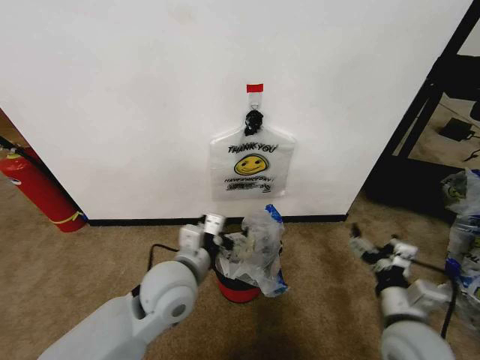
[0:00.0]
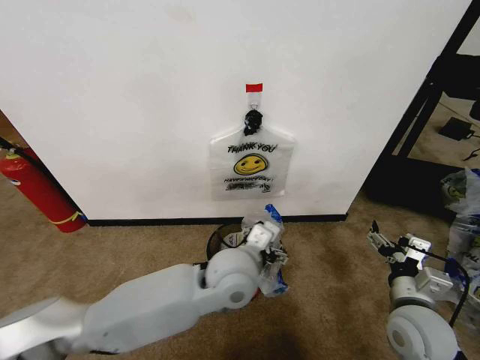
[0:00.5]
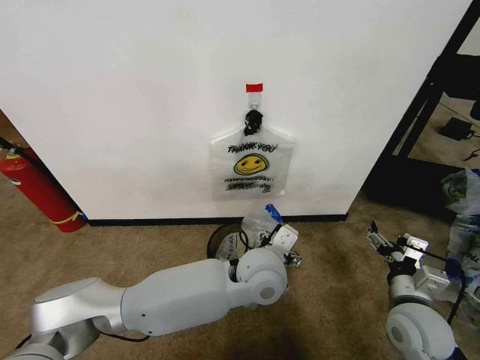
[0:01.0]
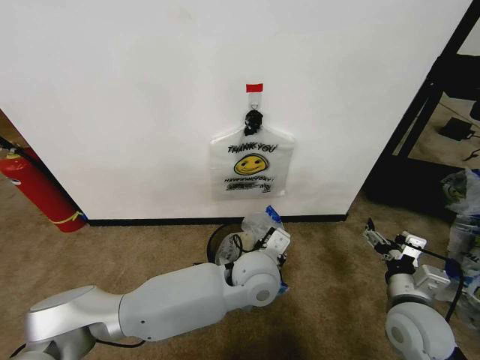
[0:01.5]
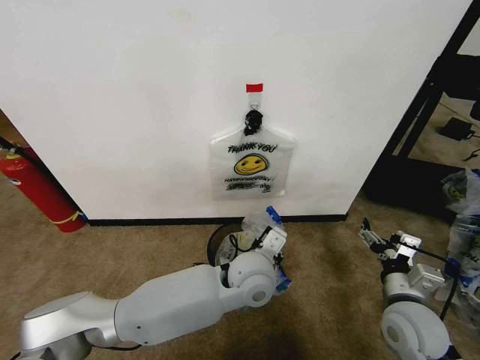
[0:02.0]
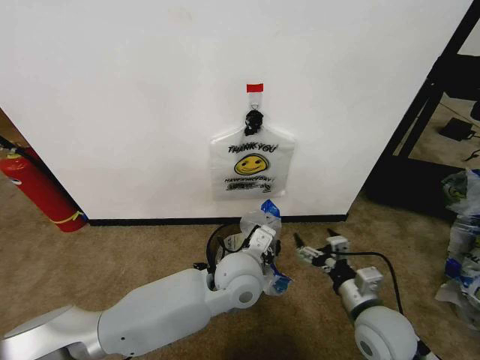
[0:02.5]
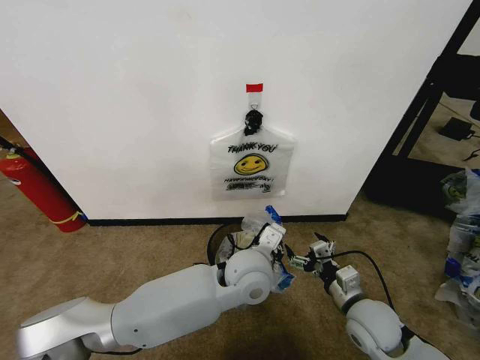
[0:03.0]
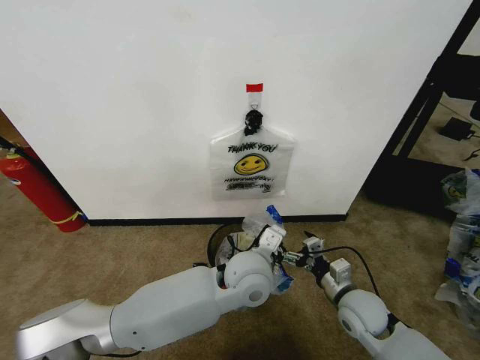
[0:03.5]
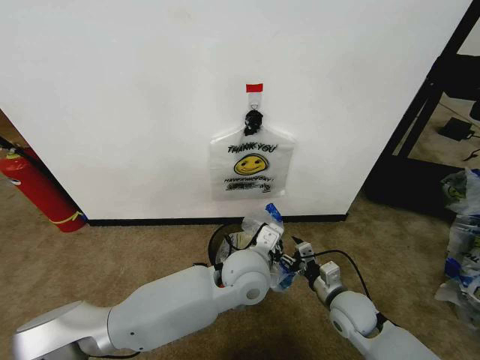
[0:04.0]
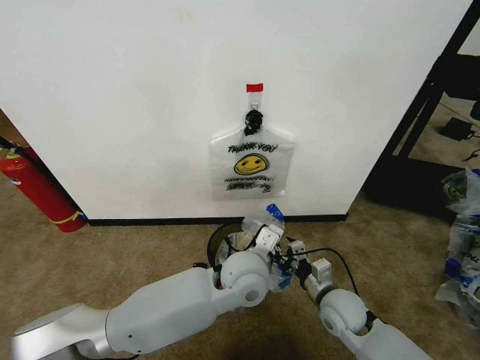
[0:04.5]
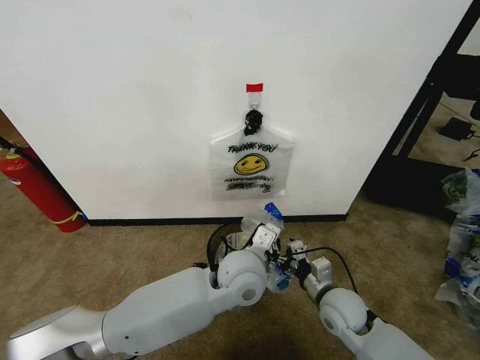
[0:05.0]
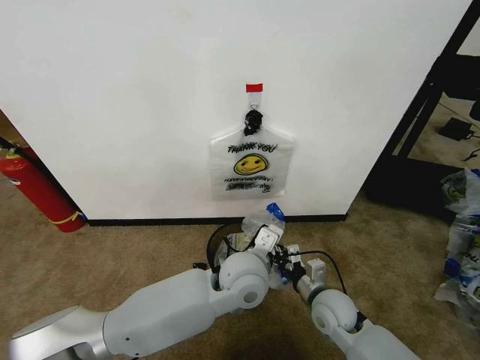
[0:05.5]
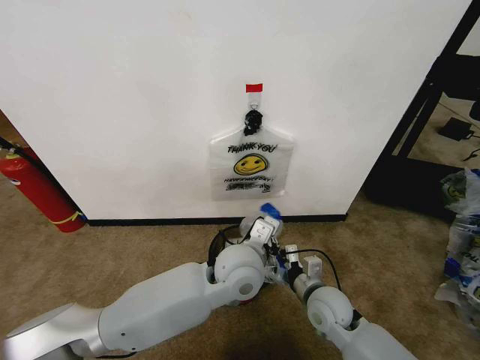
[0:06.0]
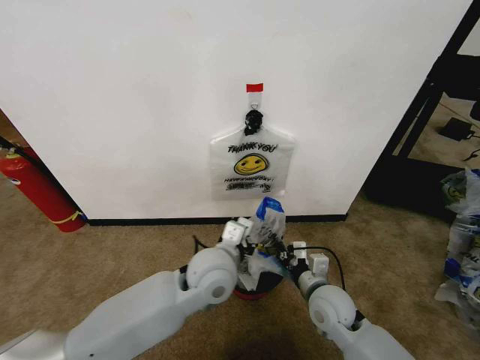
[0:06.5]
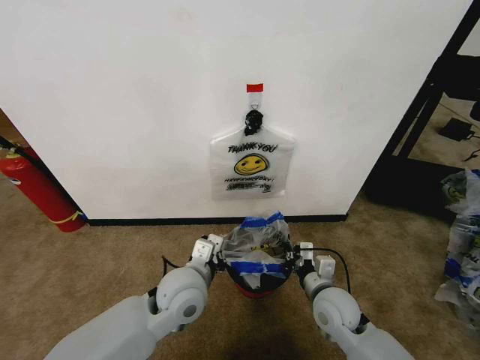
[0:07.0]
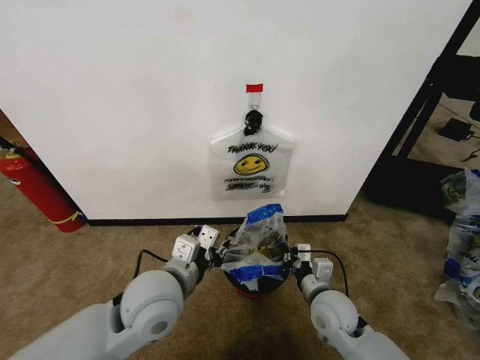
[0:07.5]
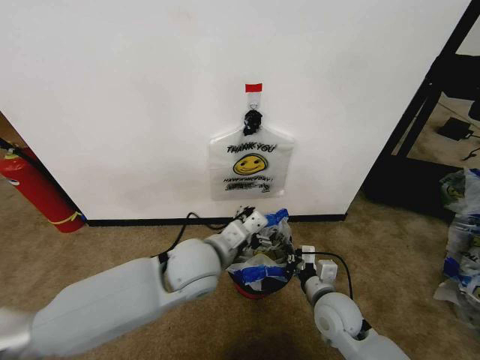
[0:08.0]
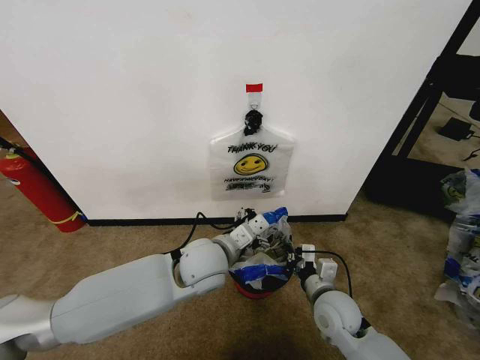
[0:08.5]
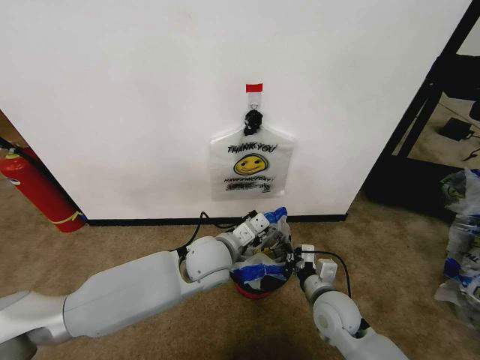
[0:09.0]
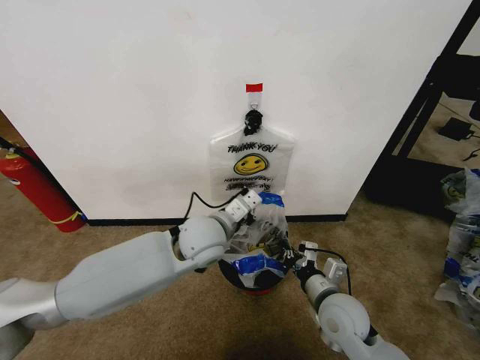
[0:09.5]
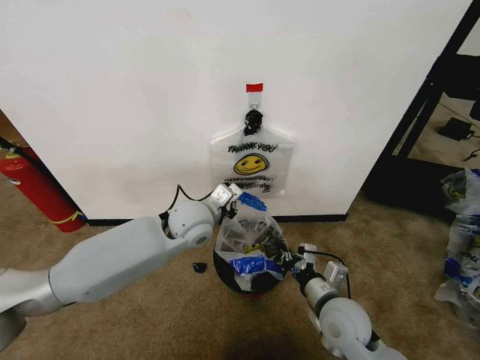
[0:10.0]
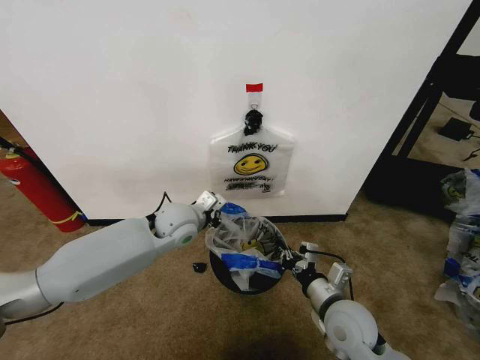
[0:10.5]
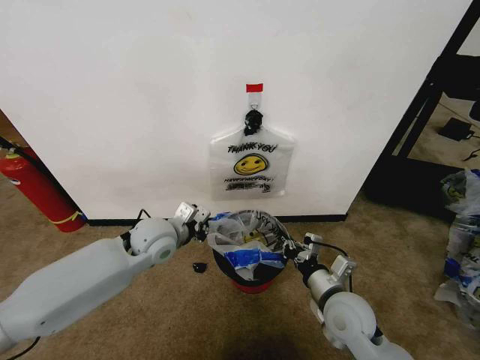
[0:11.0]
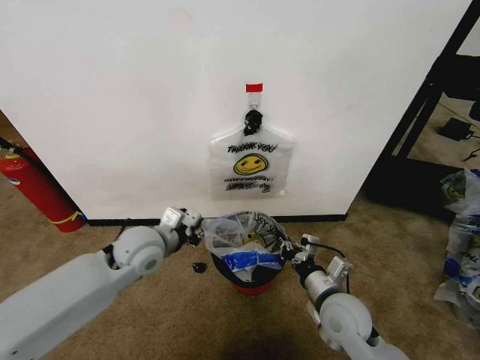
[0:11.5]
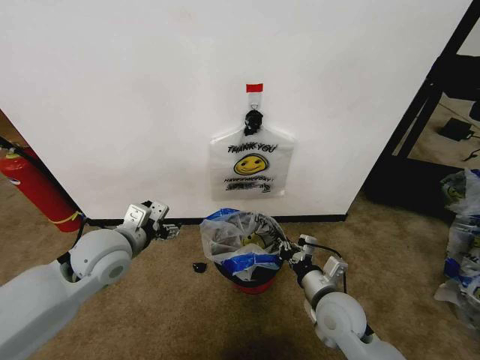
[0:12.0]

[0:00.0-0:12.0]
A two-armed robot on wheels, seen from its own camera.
Task of the whole recording: Pick up the garbage bag from the wall and place it over the trash bin.
0:00.0 to 0:02.0: The left gripper shifts approximately 15 cm to the right, and closes.
0:02.0 to 0:04.0: The right gripper is displaced downward, to the left and forward by approximately 10 cm.
0:04.0 to 0:06.0: The right gripper travels to the left by approximately 5 cm, and closes up.
0:06.0 to 0:08.0: The left gripper goes some 10 cm to the left, and opens its fingers.
0:08.0 to 0:10.0: The left gripper travels forward by about 10 cm, and closes up.
0:10.0 to 0:12.0: The left gripper moves to the left and backward, approximately 15 cm, and opens up.

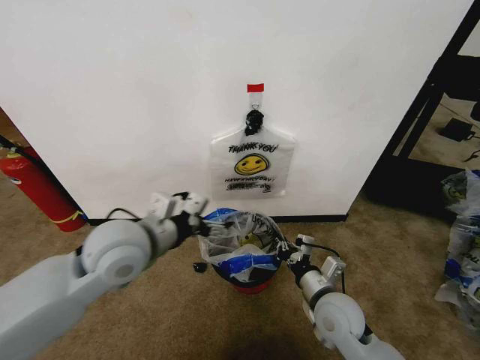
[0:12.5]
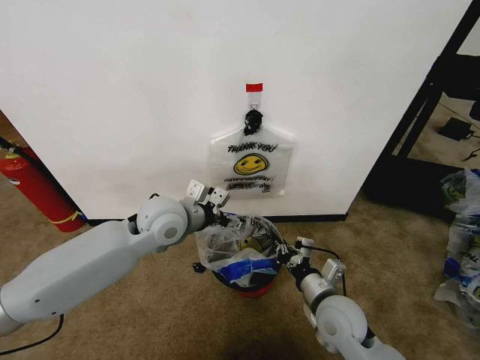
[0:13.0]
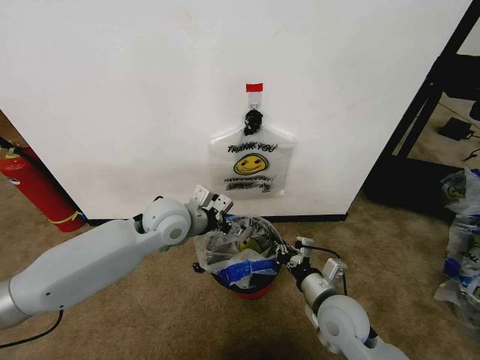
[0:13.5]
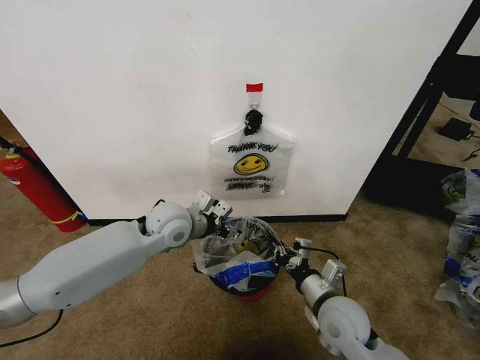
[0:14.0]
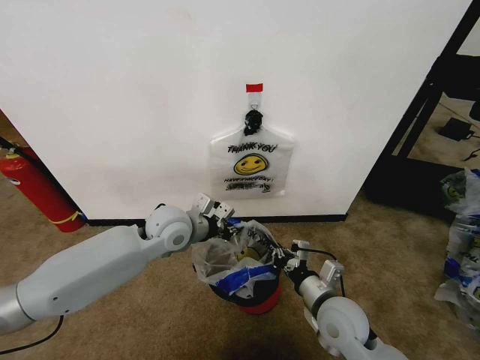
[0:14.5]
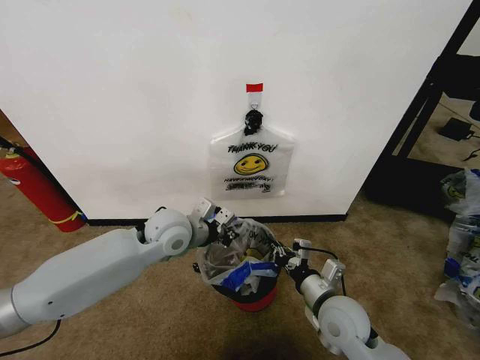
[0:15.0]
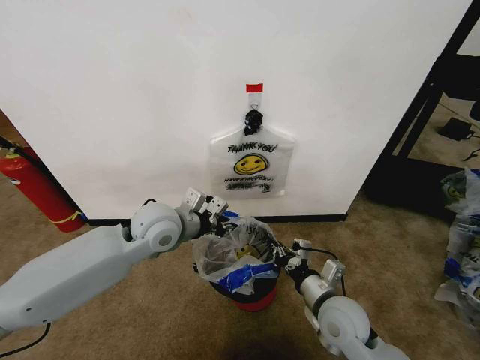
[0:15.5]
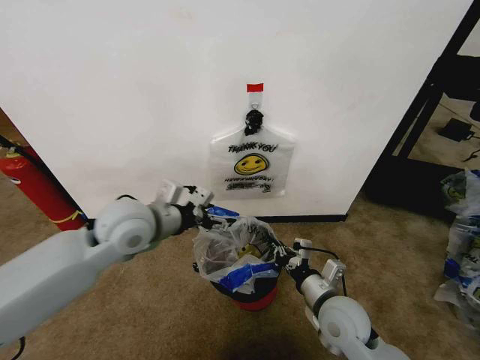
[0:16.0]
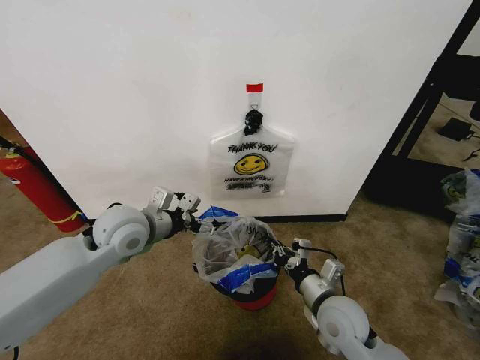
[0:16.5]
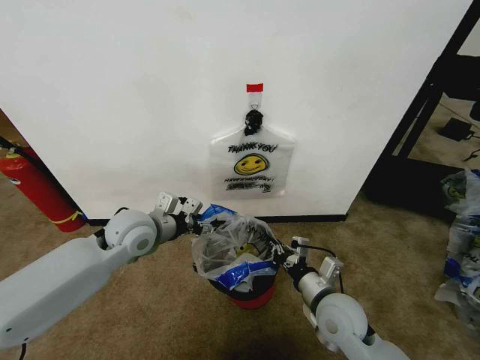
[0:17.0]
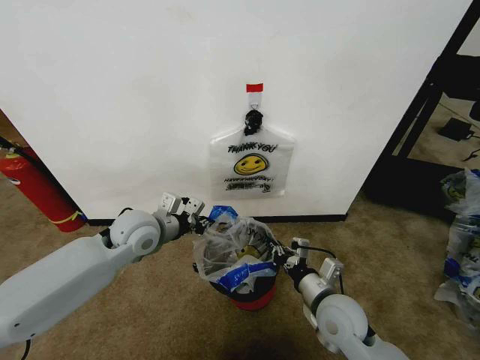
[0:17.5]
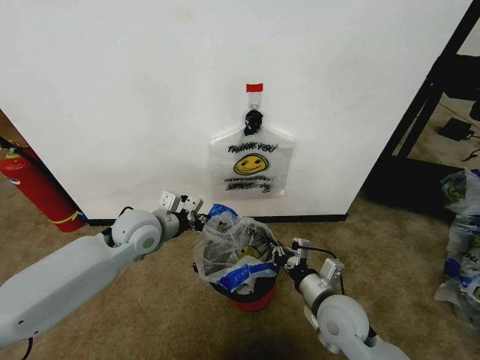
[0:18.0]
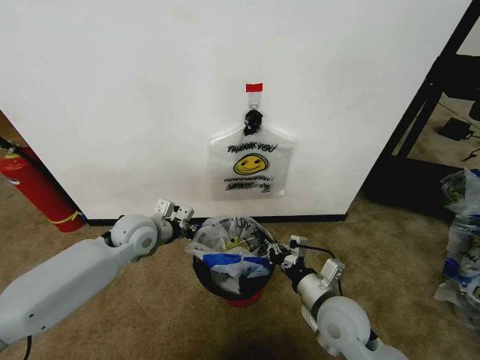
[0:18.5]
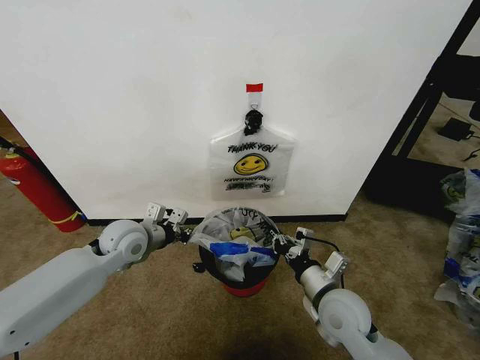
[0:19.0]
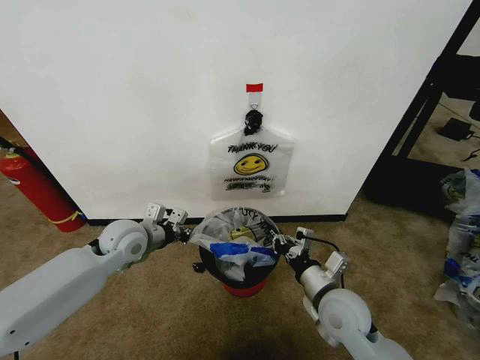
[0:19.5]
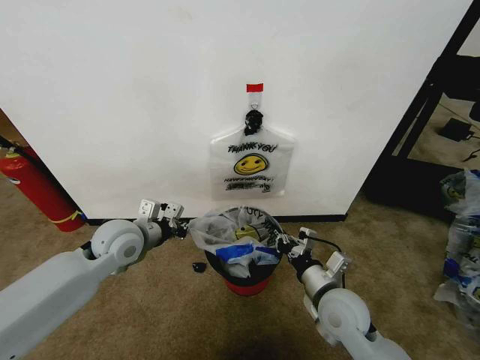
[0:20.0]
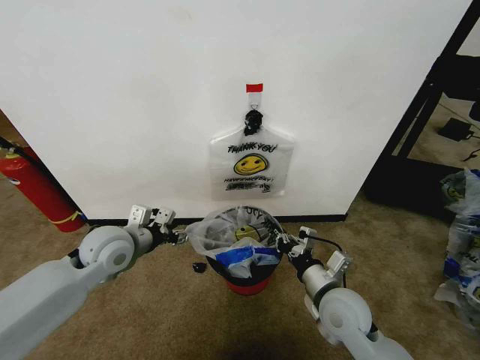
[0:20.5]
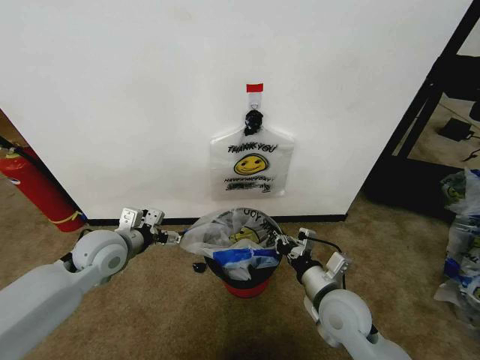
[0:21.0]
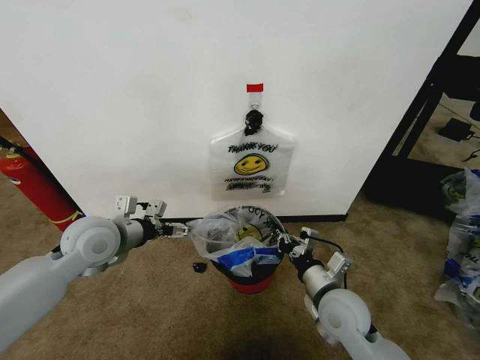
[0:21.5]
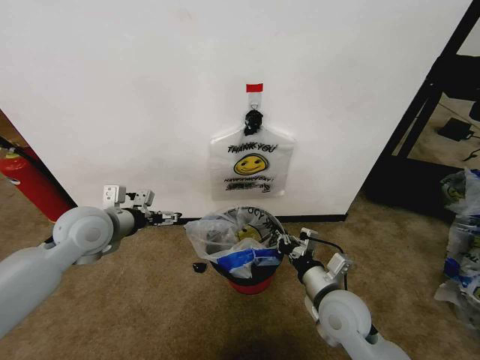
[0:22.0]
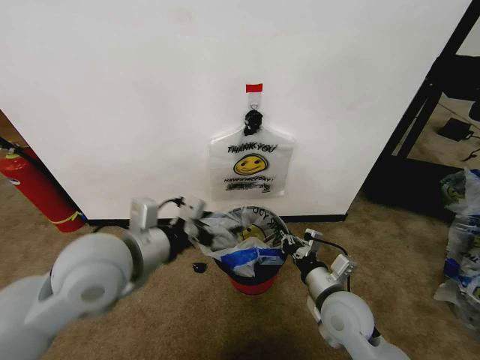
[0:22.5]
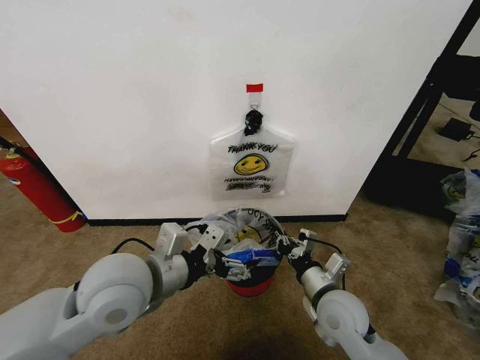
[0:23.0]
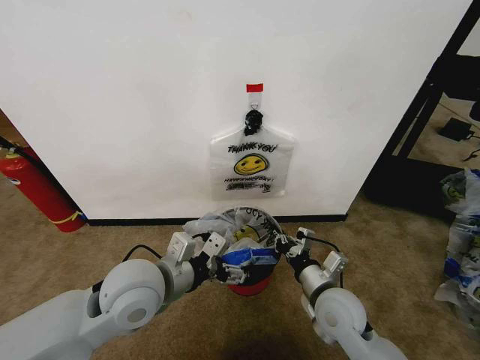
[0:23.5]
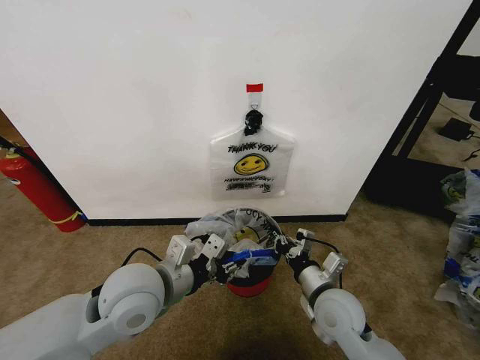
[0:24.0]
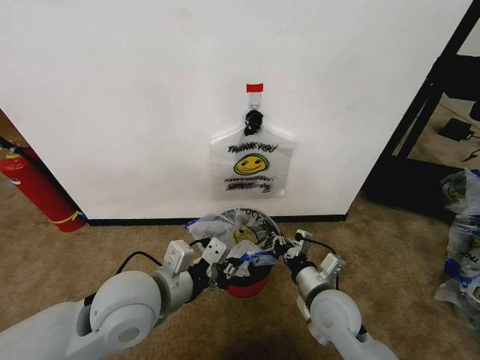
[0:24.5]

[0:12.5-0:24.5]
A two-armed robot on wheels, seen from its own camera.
Task of the whole recording: Pick up the garbage bag from the wall and place it over the trash bin.
0:12.5 to 0:14.5: The left gripper travels forward and downward by some 15 cm, and closes.
0:14.5 to 0:16.5: The left gripper travels to the left by roughly 10 cm, and opens its fingers.
0:16.5 to 0:18.5: The left gripper heads downward, covering approximately 10 cm, and closes up.
0:18.5 to 0:20.5: The left gripper goes approximately 5 cm backward, and opens.
0:20.5 to 0:22.5: The left gripper travels upward, backward and to the right by approximately 15 cm, and opens.
0:22.5 to 0:24.5: The left gripper travels downward by approximately 5 cm, and closes its fingers.

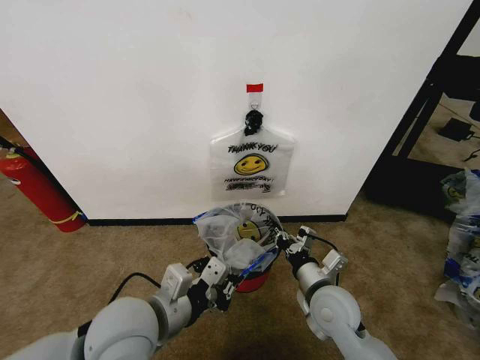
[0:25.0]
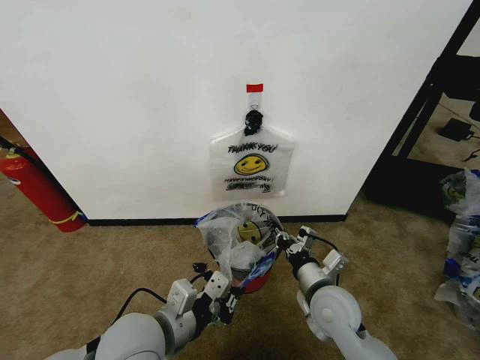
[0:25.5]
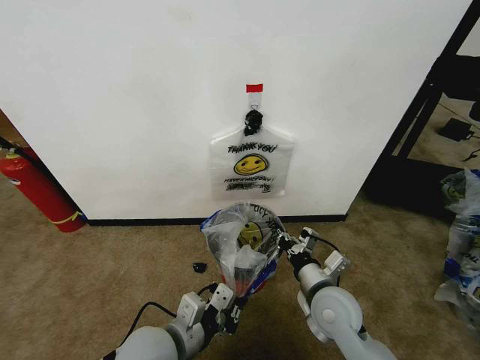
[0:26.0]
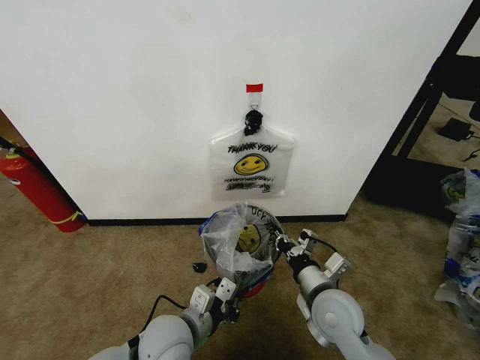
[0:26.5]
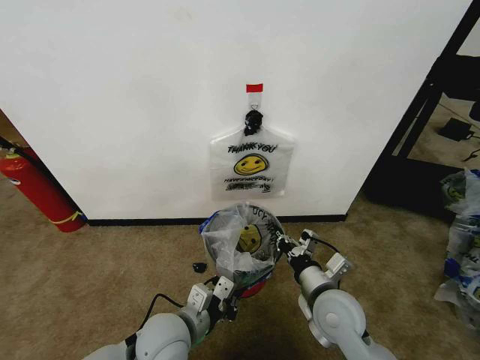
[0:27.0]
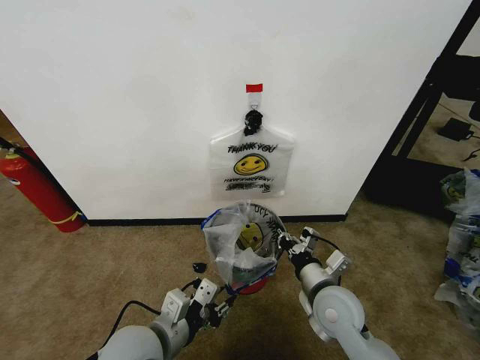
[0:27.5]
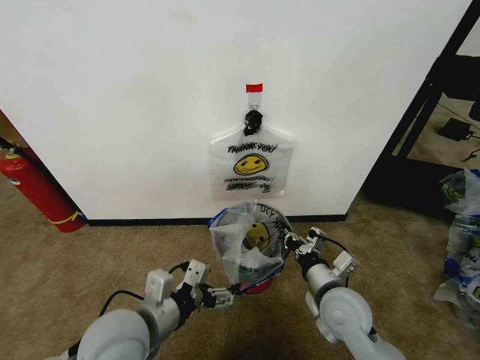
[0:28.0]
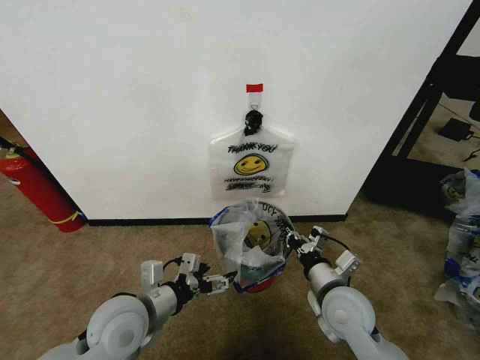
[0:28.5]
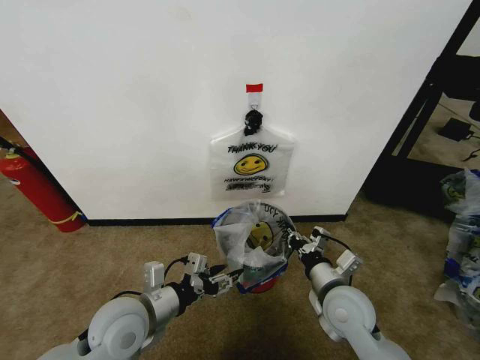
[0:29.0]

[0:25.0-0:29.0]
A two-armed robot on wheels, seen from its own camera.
Task of the whole recording: Pick up the garbage bag from the wall and place it over the trash bin.
0:25.0 to 0:27.0: The left gripper goes roughly 10 cm downward.
0:27.0 to 0:29.0: The left gripper travels to the left by roughly 5 cm, and opens.
